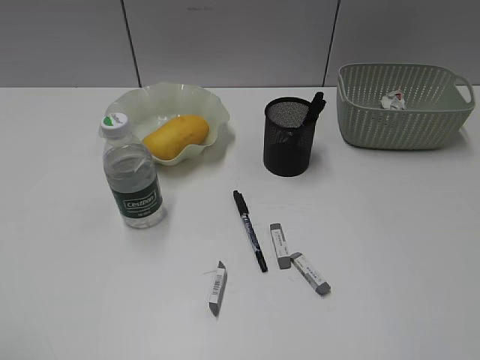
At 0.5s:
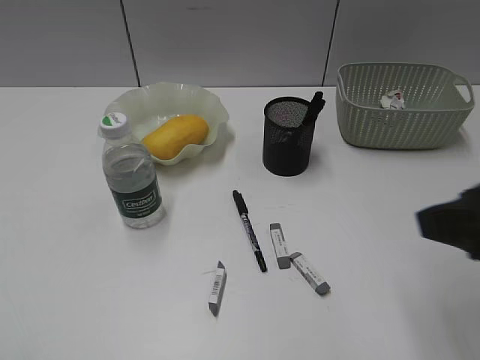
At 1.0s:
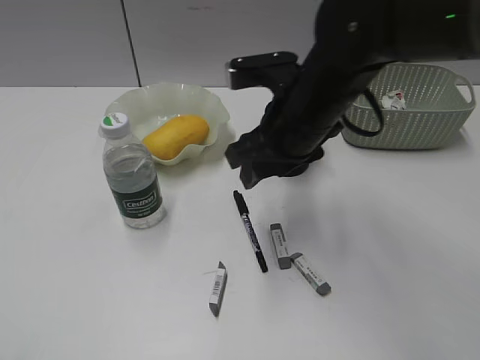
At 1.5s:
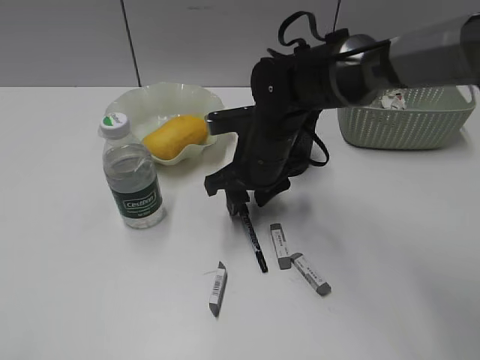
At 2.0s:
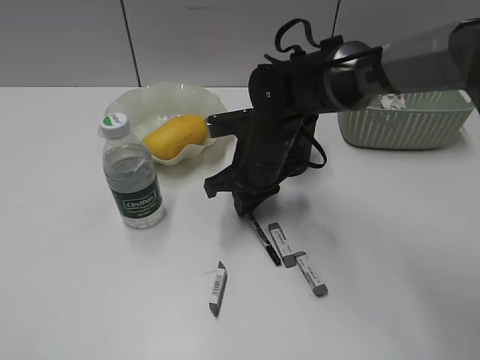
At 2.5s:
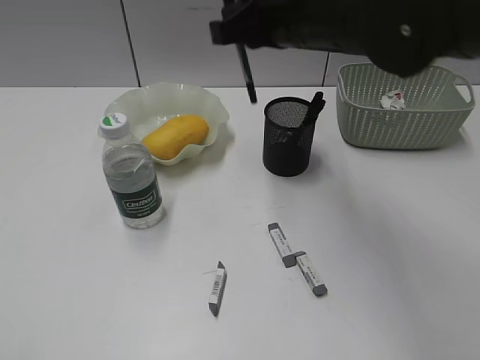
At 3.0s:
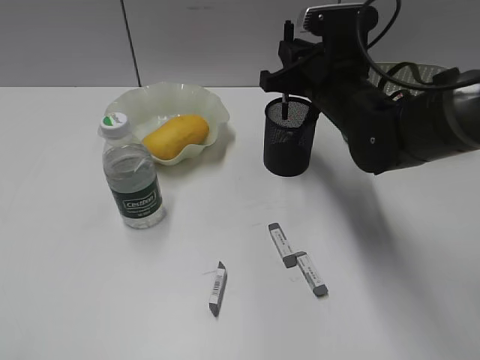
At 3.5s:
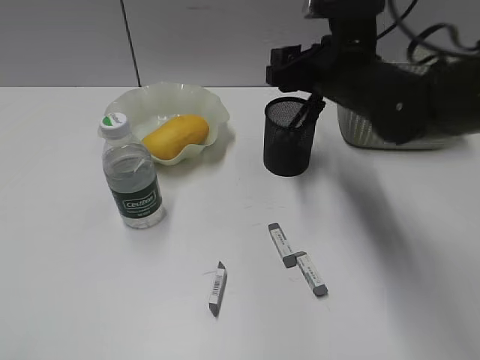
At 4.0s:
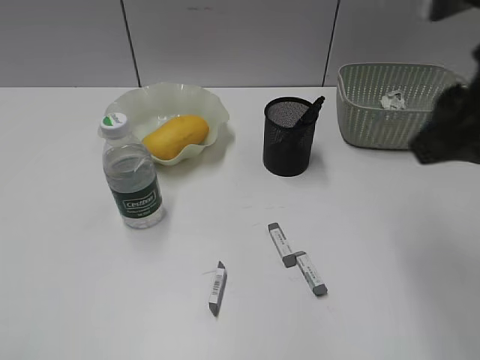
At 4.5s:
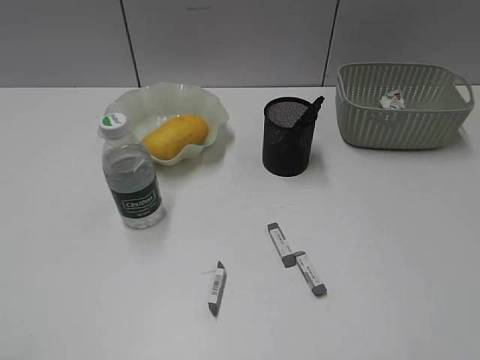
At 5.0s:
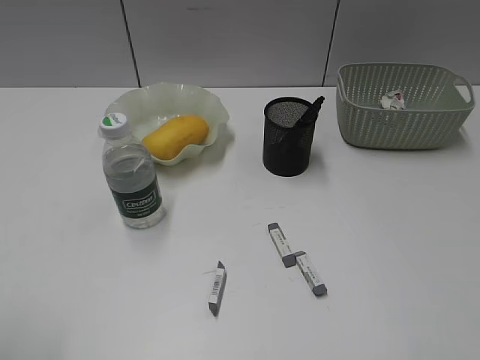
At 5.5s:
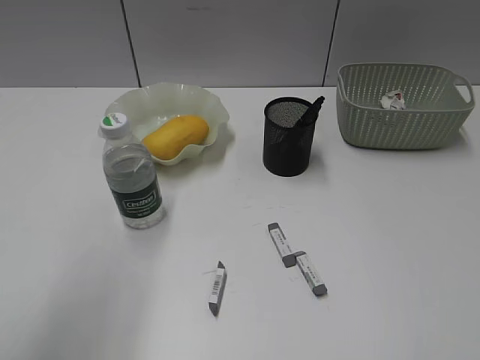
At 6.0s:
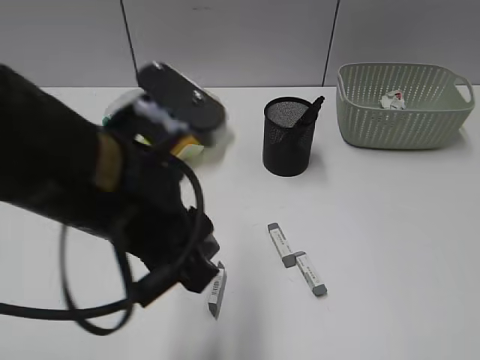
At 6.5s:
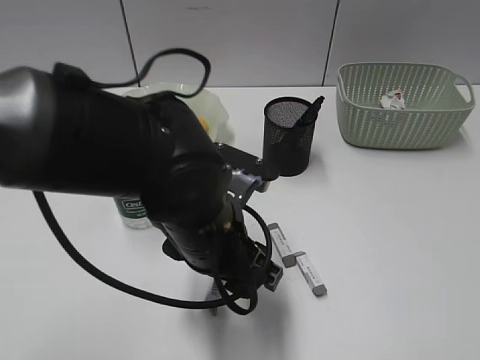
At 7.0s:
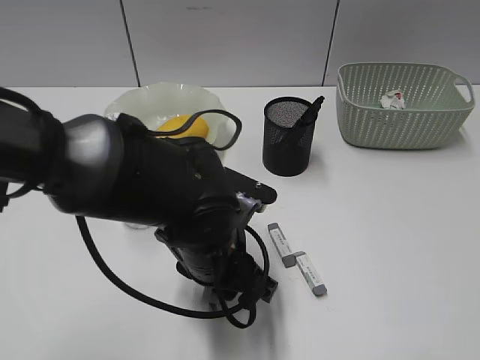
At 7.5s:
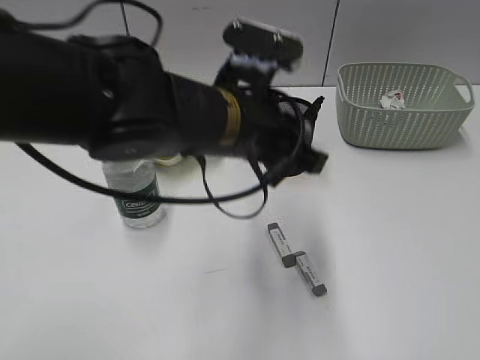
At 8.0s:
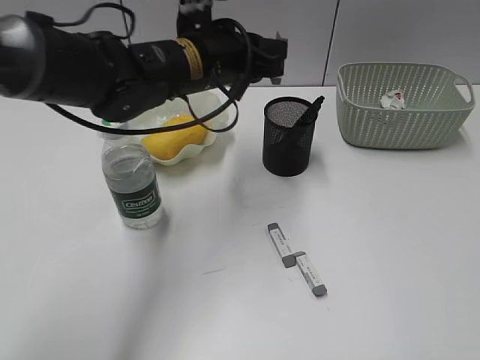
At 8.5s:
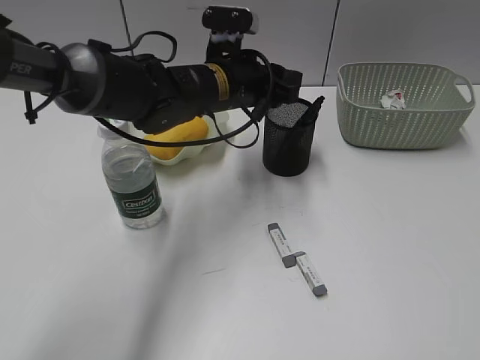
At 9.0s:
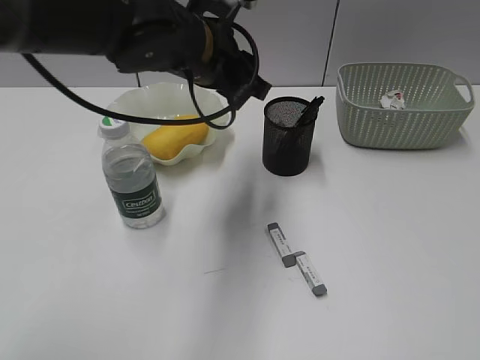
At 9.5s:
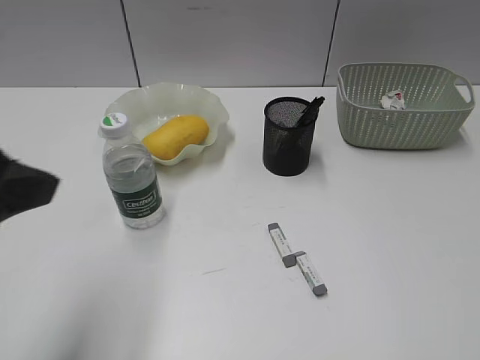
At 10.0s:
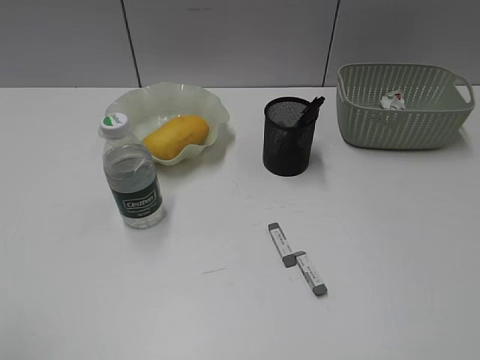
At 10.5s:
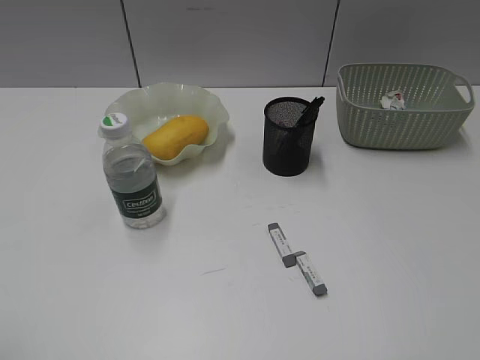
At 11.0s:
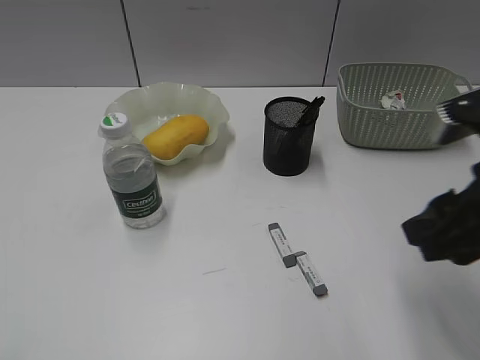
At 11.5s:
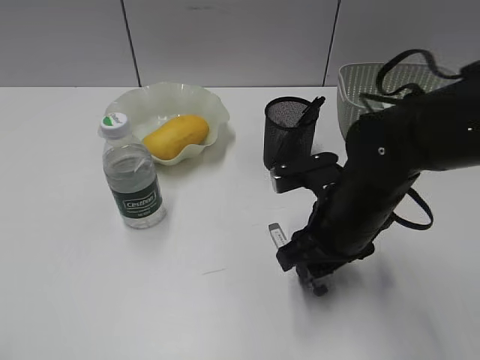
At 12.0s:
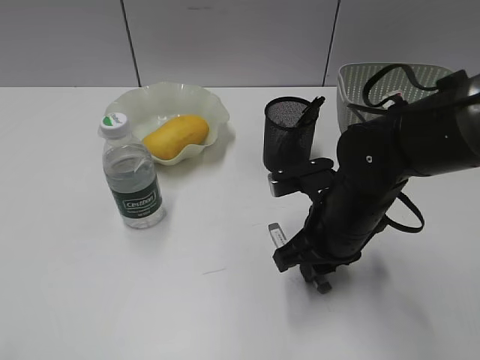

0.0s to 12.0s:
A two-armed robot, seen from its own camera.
Step, 0.0s to 2.0s: Grasp the black pen with right gripper.
Step, 2.5s to 3.5s: Place the black pen in pen holder with right gripper.
Step, 4.0s to 7.0s: Grasp the eraser with left gripper.
Step, 7.5s to 8.5s: Place the eraser in pen holder with left gripper.
Step, 9.0s to 12.0s: Grasp the eraser with right gripper.
0.0s to 2.0s: The right gripper is displaced forward, to the left and downward by approximately 50 cm, and opens, then closes once more.
2.0s to 4.0s: The right gripper swings up and down, roughly 20 cm each way, with 2 reversals, and opens its fingers.
4.0s to 6.0s: The left gripper goes roughly 30 cm to the right and forward. Meanwhile the right gripper travels backward and to the right by about 25 cm, and opens.
6.0s to 8.0s: The left gripper is displaced forward by approximately 20 cm, and closes.
8.0s to 10.0s: The left gripper is displaced backward and to the left by about 40 cm, and opens up.
10.0s to 12.0s: The right gripper moves forward, to the left and downward, approximately 35 cm, and closes up.

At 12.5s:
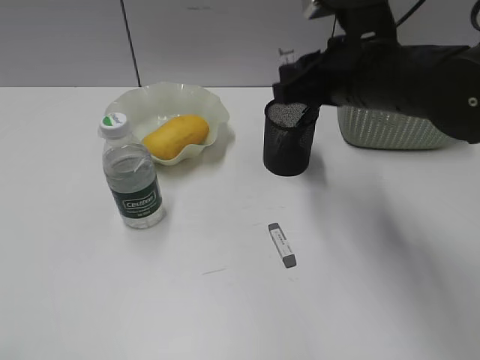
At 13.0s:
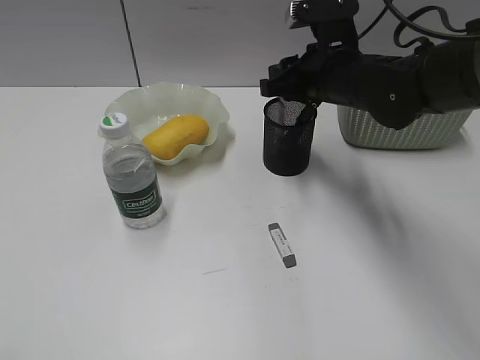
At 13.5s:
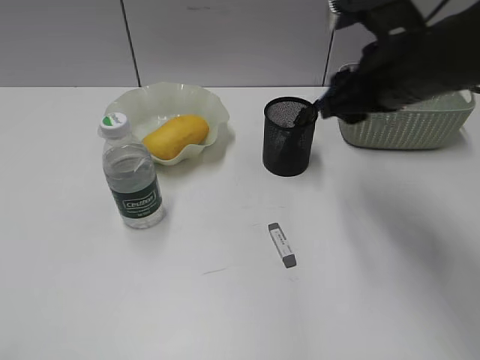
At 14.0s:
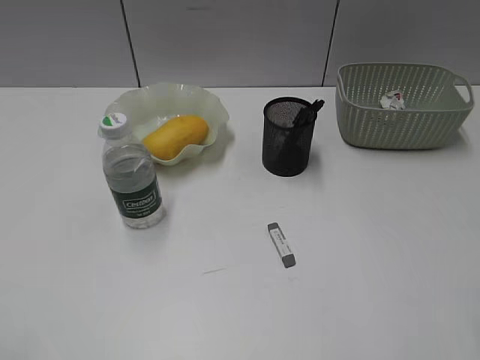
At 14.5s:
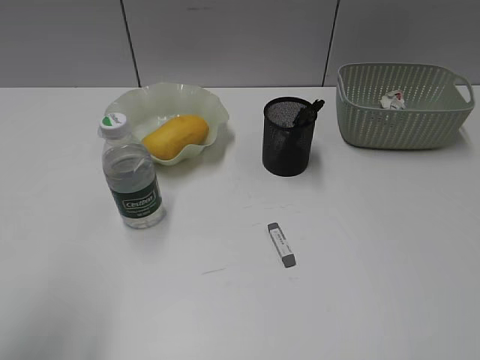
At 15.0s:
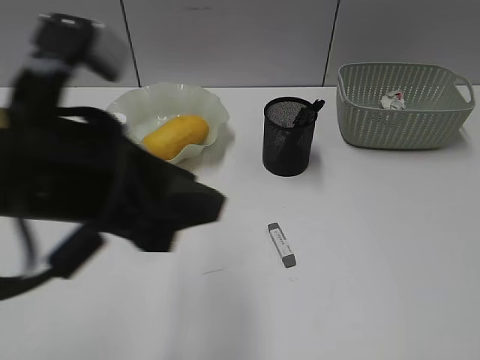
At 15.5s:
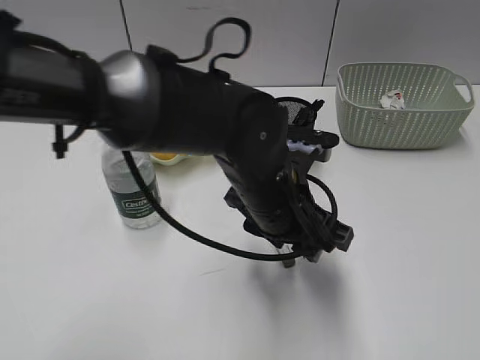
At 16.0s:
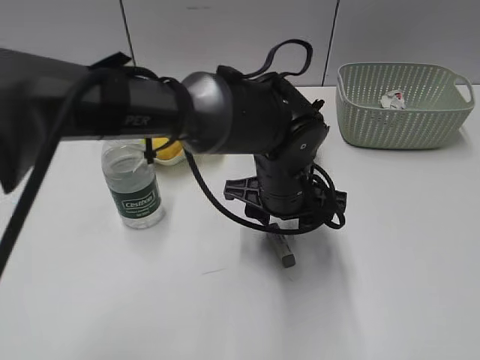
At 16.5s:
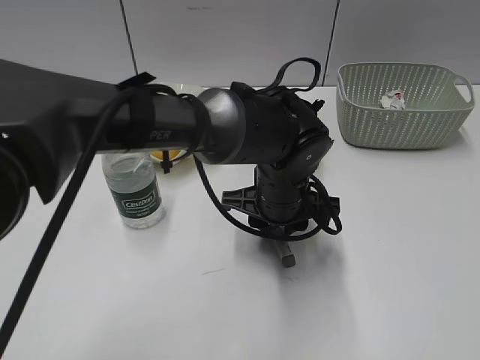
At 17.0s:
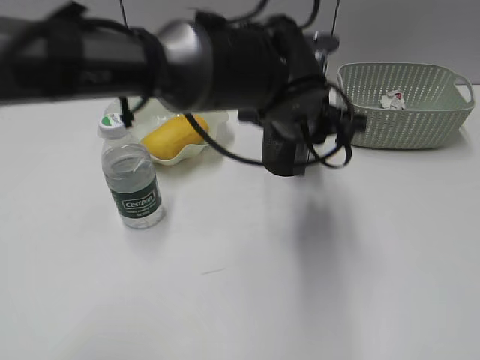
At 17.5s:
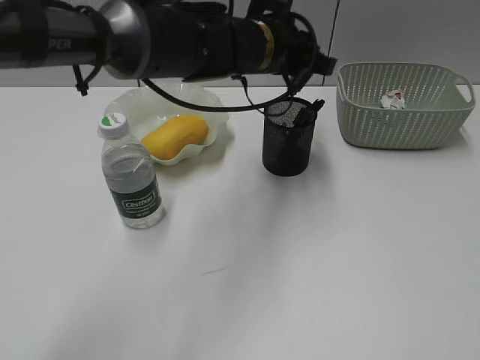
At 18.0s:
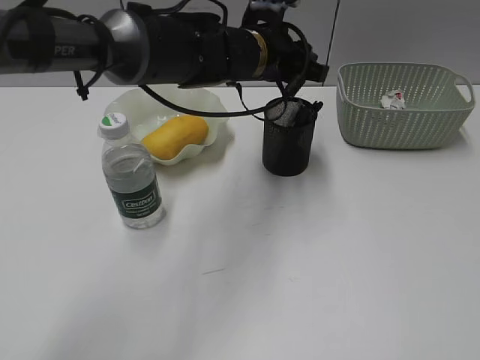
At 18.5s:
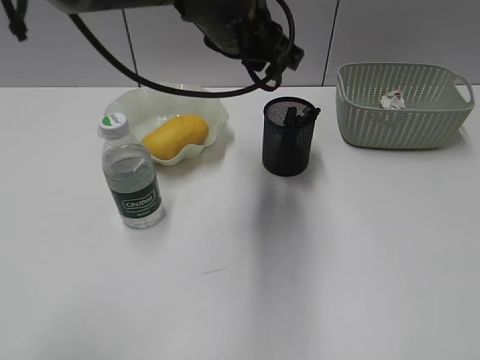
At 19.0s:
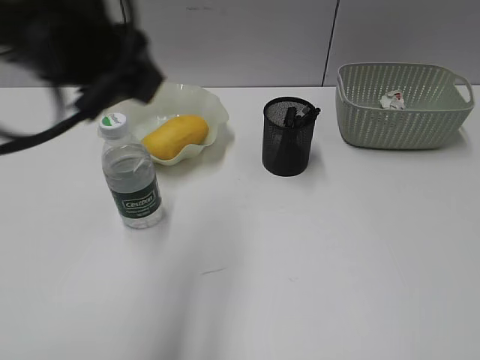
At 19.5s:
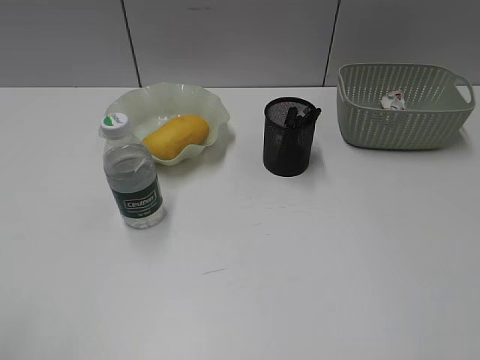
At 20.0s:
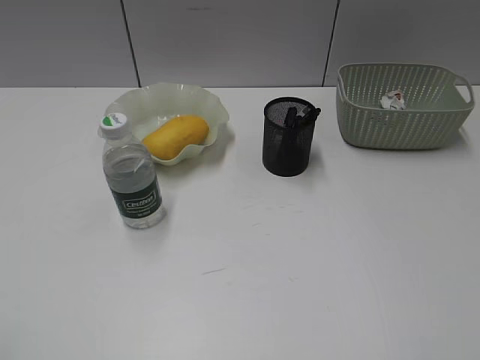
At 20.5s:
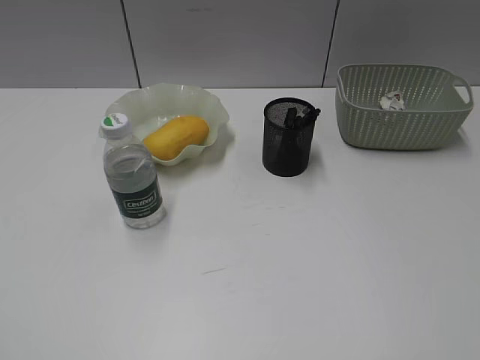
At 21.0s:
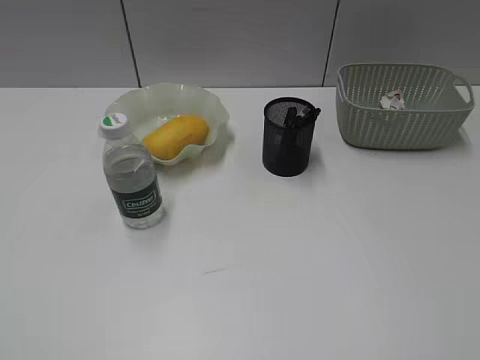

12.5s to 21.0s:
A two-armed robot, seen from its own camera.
Step, 13.5s to 16.5s: Grasp the eraser with left gripper.
Step, 17.0s to 18.0s: Place the eraser in pen holder with left gripper.
12.5s to 14.5s: The right gripper goes about 35 cm backward and to the right, and opens up, while the left gripper is displaced forward and to the right by about 10 cm.
14.5s to 16.5s: The left gripper is displaced to the right, forward and downward by approximately 40 cm.
16.5s to 19.0s: The left gripper shifts approximately 30 cm upward and to the left.
19.0s to 21.0s: The left gripper goes roughly 30 cm to the left and backward, while the right gripper opens up.
